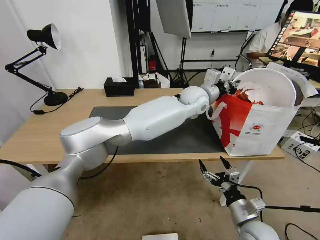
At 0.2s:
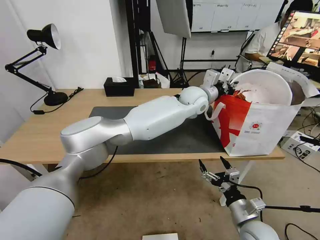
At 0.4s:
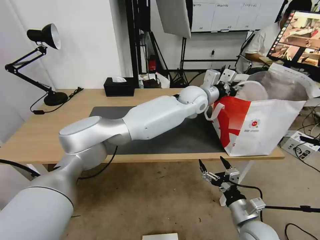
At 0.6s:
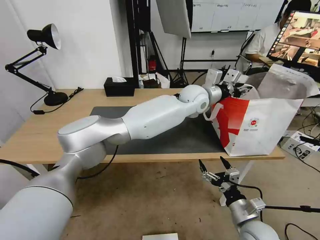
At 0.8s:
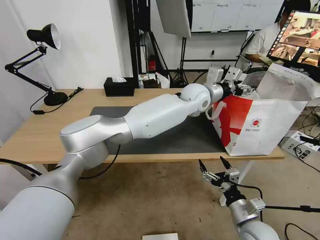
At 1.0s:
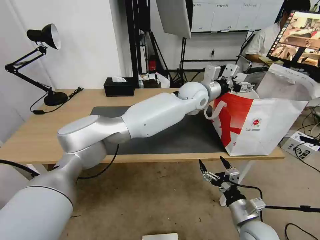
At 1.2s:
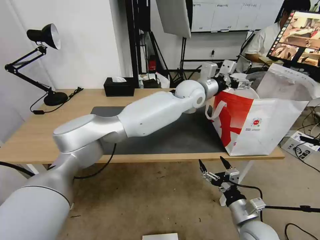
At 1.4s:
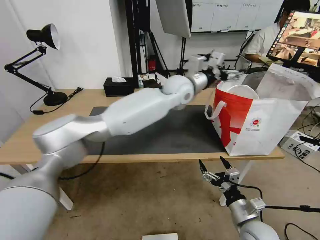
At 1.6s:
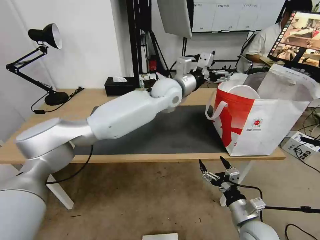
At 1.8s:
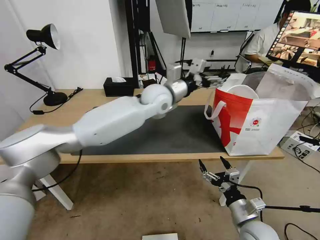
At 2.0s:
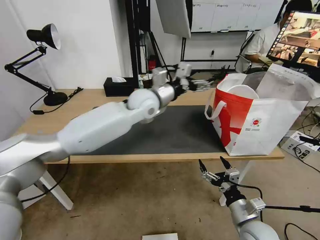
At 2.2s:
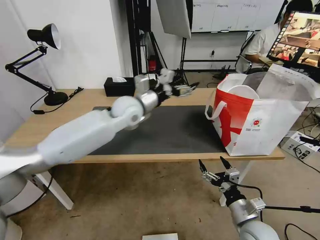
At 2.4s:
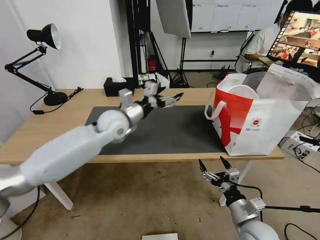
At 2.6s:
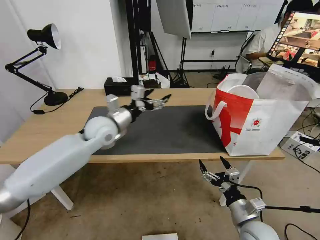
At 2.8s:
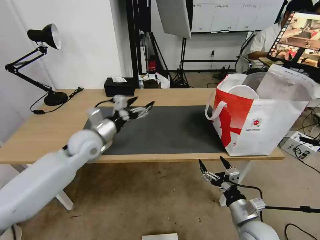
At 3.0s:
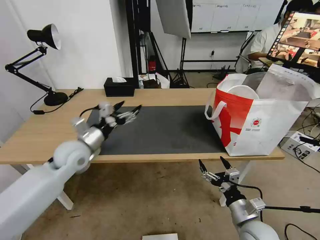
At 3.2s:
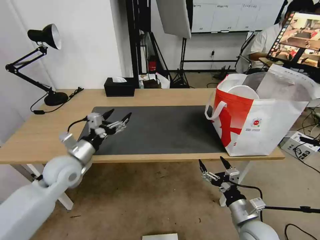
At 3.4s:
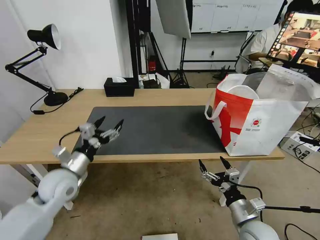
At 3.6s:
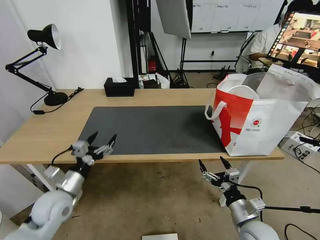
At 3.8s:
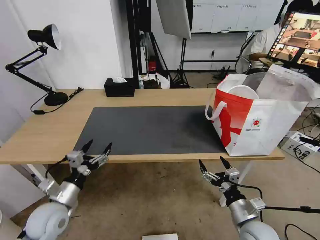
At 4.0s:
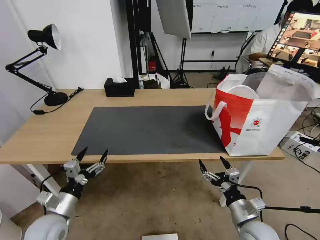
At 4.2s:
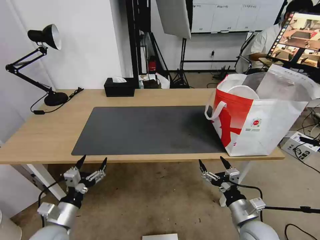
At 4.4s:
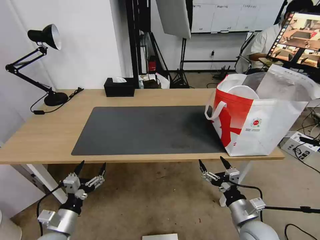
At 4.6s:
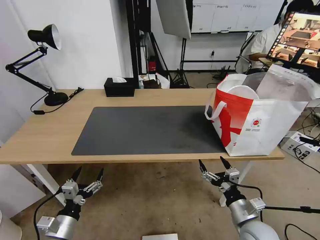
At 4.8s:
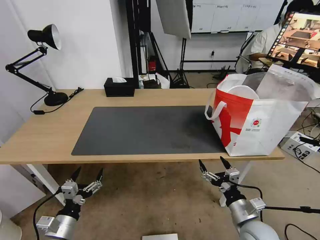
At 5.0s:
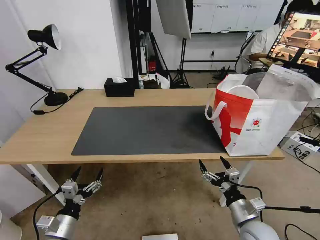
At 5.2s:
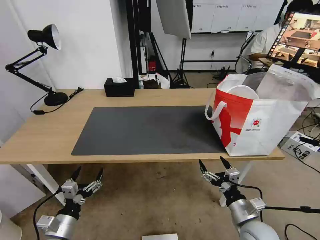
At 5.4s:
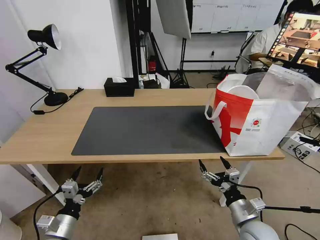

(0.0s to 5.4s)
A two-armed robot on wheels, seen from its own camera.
Task of the whole recording: Pick up the trash from the table and place it into the takeout bag.
0.0s - 1.4s: The left gripper moves to the left, roughly 5 cm, and opens its fingers.
1.4s - 2.8s: The left gripper moves to the left, backward and downward, about 30 cm.
2.8s - 4.0s: The left gripper travels backward, downward and to the left by about 25 cm.
4.0s - 5.4s: The left gripper heads backward, covering approximately 5 cm.

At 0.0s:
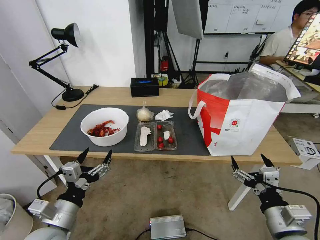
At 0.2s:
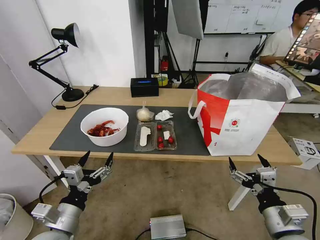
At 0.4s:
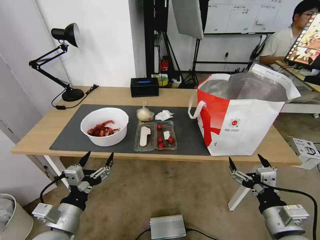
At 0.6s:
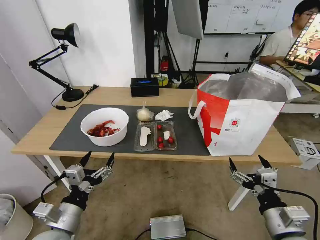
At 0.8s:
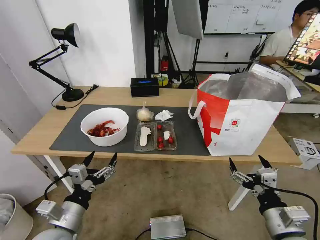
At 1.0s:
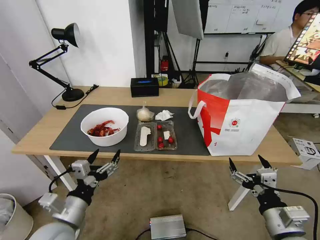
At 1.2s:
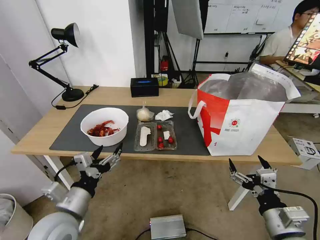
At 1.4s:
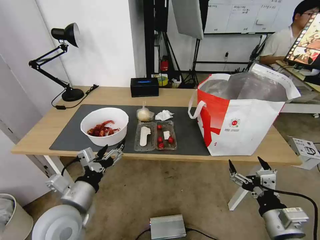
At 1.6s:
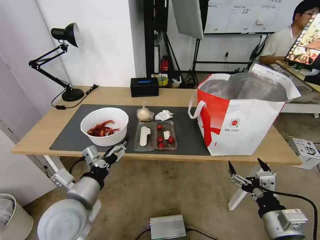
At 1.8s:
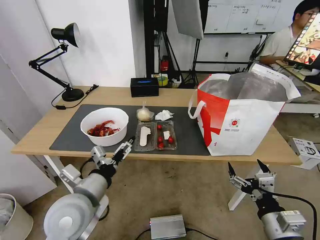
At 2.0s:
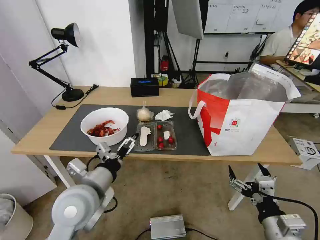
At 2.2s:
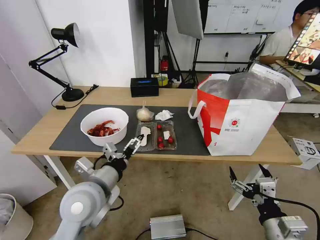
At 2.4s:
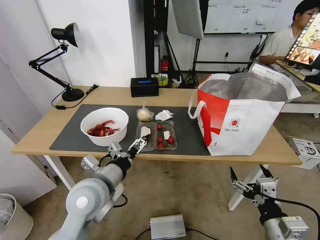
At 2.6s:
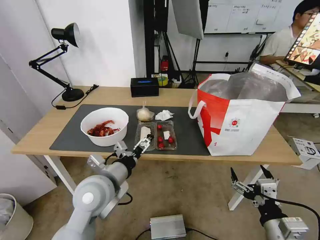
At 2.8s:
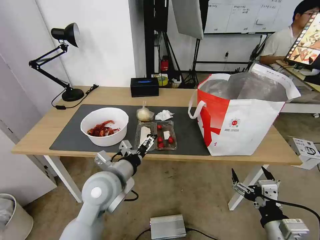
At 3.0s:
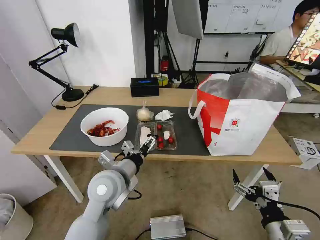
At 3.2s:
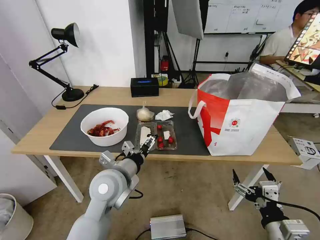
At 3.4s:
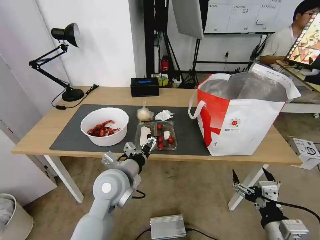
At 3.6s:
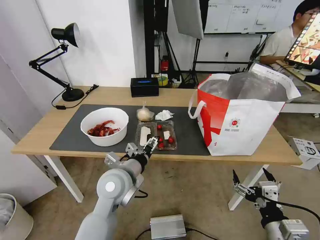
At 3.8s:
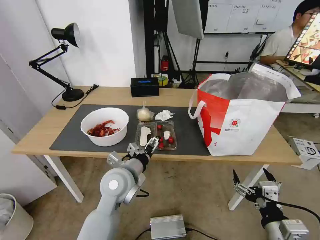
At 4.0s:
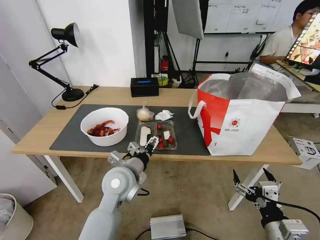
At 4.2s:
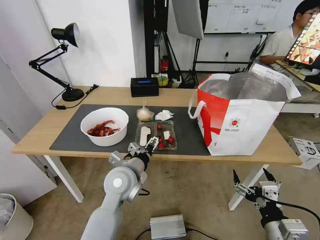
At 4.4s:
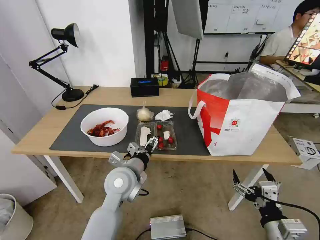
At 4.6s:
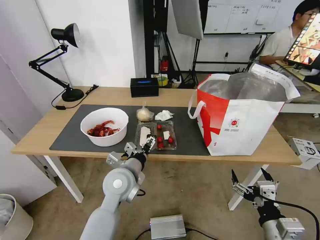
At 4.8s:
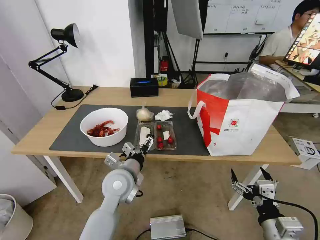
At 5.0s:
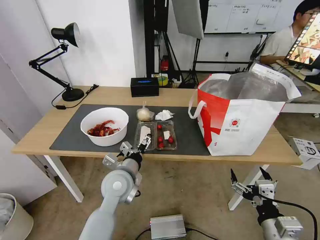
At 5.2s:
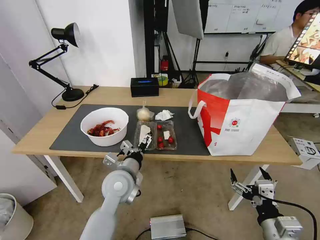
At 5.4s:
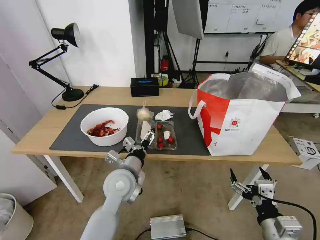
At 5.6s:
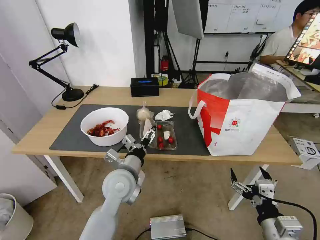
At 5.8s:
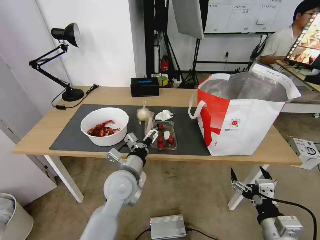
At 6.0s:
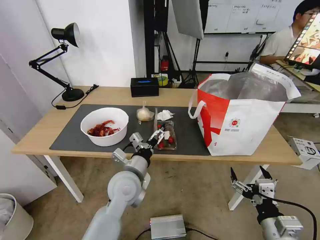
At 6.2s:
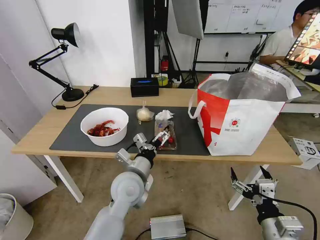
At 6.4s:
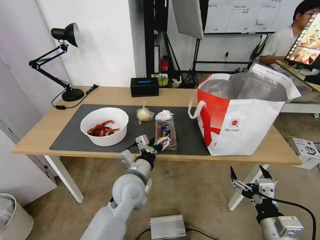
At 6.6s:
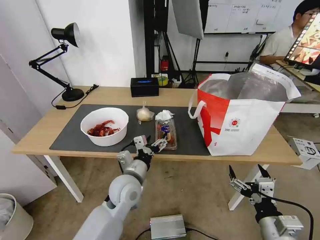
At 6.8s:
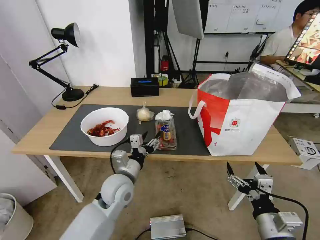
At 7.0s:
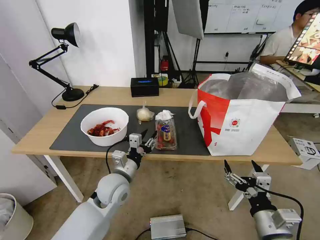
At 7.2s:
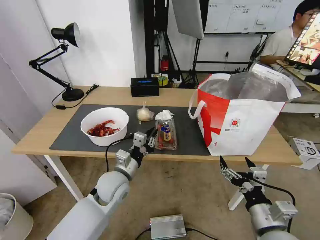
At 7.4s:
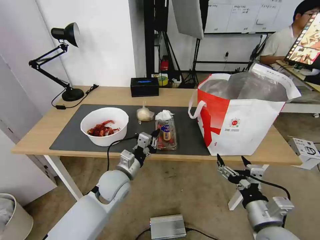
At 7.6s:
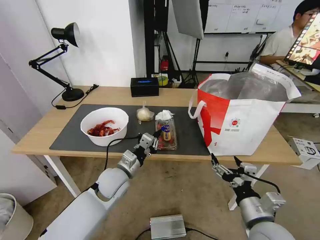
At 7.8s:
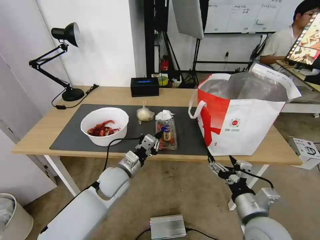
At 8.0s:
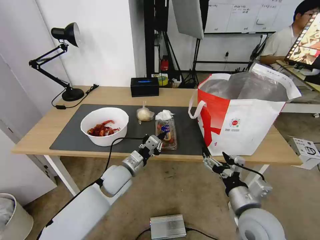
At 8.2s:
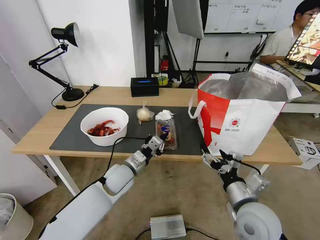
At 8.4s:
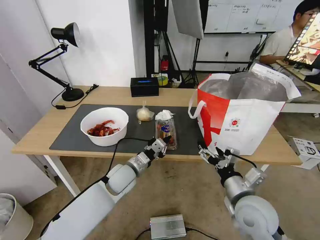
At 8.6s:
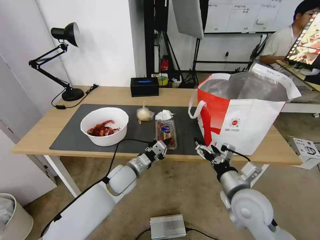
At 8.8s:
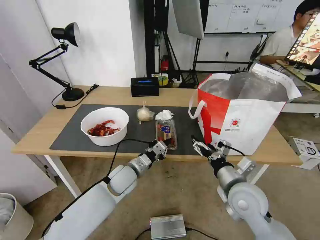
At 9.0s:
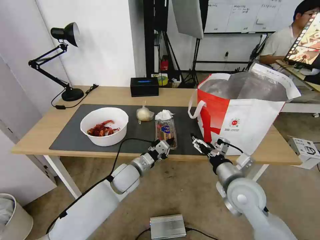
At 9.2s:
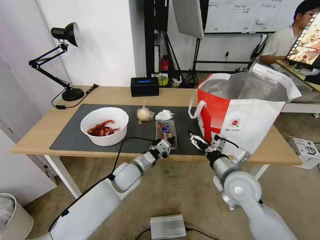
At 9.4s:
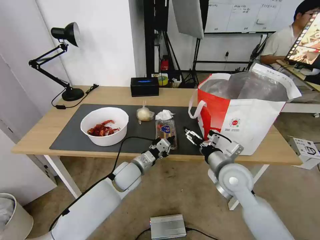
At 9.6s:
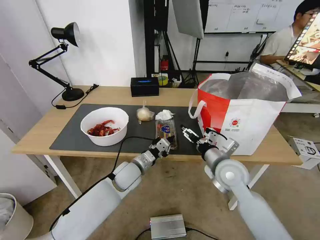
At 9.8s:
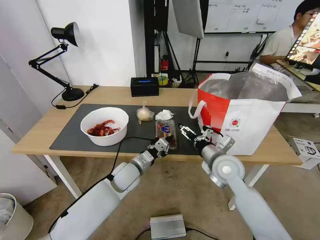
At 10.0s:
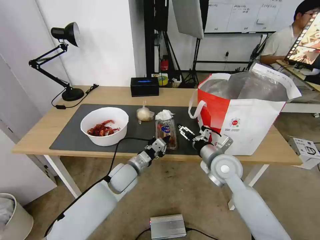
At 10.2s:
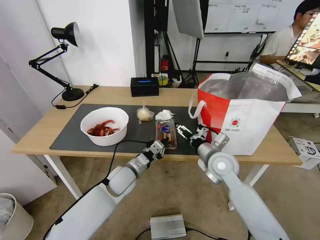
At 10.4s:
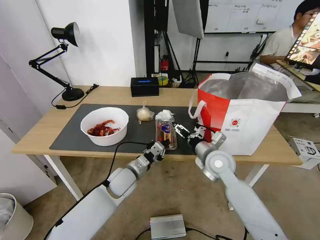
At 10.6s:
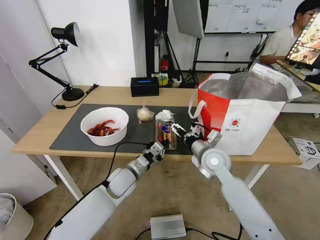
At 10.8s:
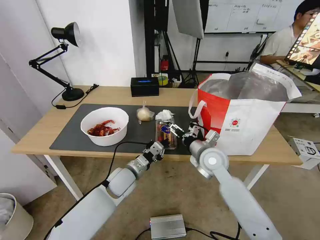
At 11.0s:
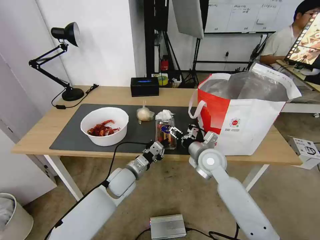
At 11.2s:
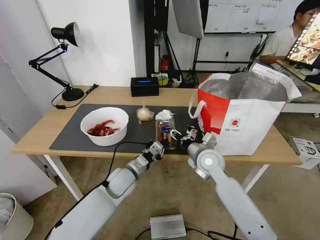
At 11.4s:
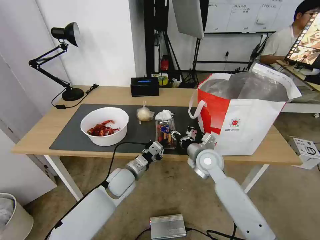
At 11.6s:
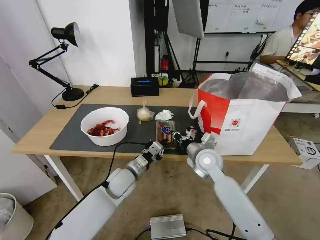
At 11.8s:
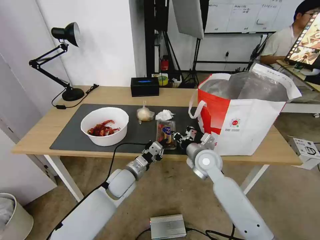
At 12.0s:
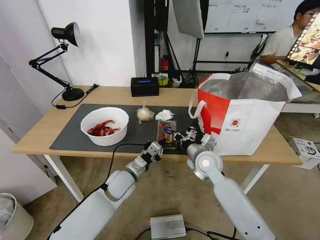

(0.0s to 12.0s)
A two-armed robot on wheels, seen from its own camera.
Task of the whole recording: Pick up the trash from the table and place it into the takeout bag.
1.6s - 3.0s: The left gripper heads to the right and forward, covering about 10 cm.
3.0s - 4.4s: The left gripper shifts by some 5 cm.
6.0s - 7.6s: The right gripper ends up approximately 5 cm from where it was, while the left gripper ends up roughly 10 cm from where it was, and closes.
7.6s - 9.0s: The left gripper moves approximately 5 cm. The right gripper travels forward by approximately 10 cm.
9.0s - 10.4s: The right gripper travels forward by some 10 cm.
10.4s - 12.0s: The right gripper closes.

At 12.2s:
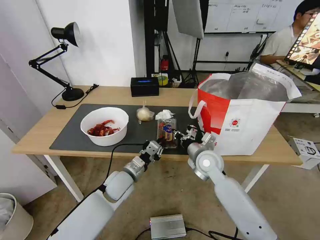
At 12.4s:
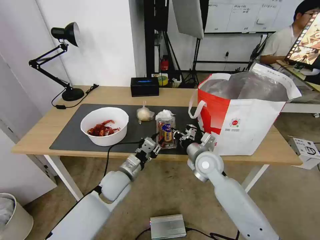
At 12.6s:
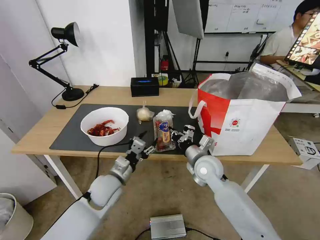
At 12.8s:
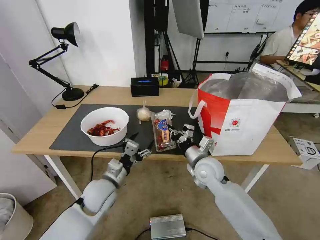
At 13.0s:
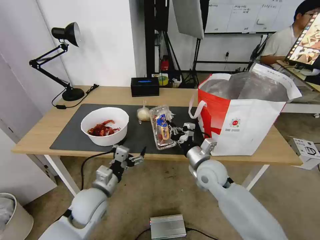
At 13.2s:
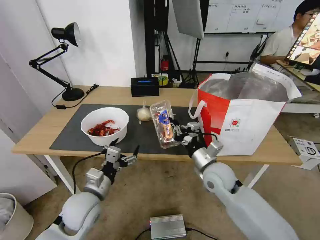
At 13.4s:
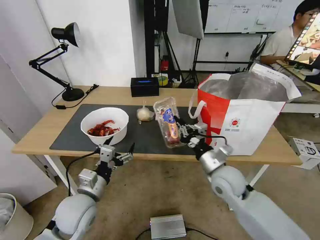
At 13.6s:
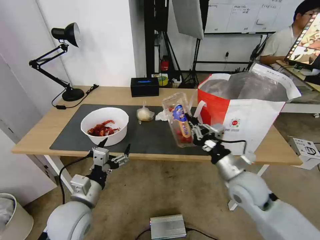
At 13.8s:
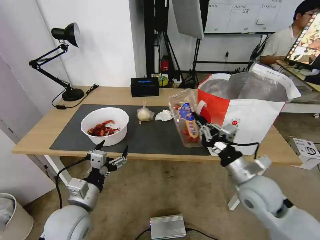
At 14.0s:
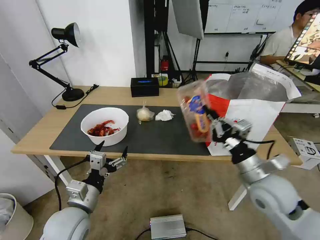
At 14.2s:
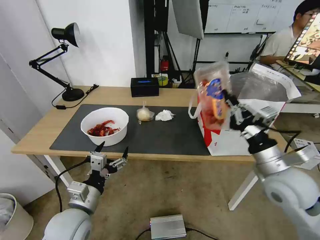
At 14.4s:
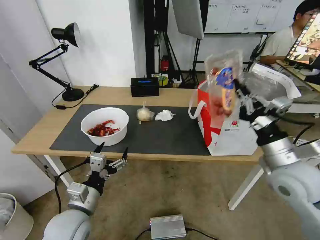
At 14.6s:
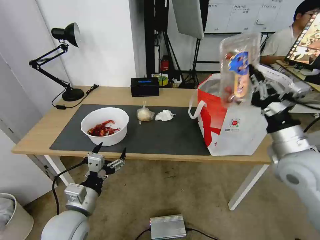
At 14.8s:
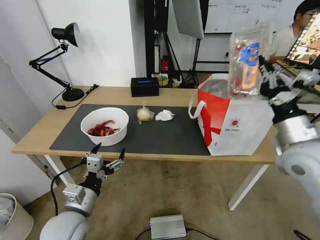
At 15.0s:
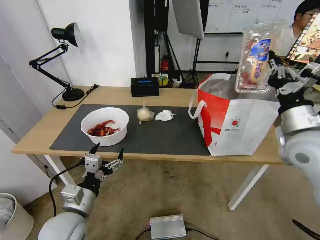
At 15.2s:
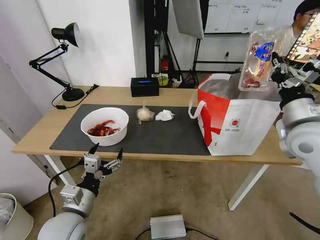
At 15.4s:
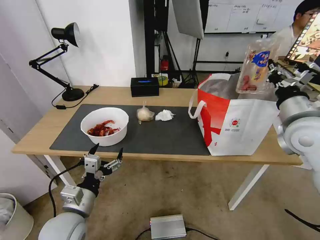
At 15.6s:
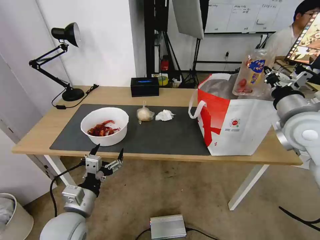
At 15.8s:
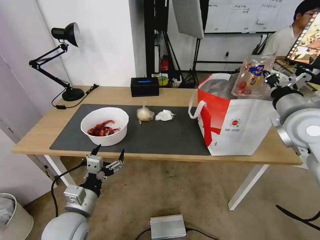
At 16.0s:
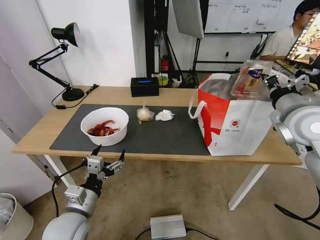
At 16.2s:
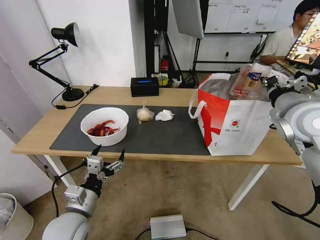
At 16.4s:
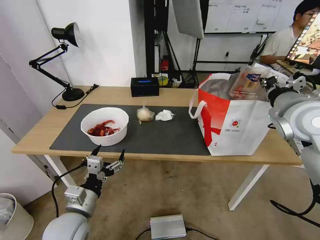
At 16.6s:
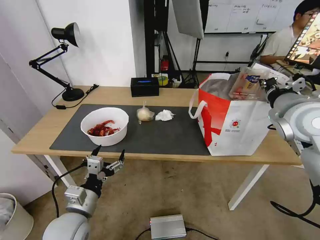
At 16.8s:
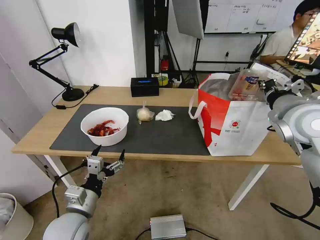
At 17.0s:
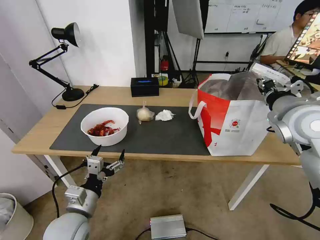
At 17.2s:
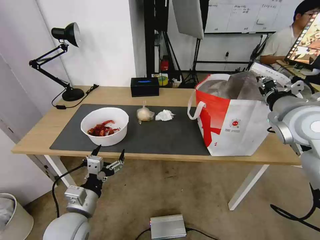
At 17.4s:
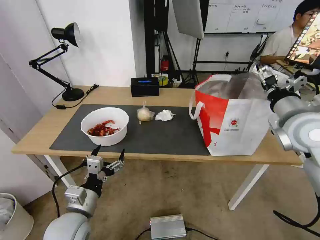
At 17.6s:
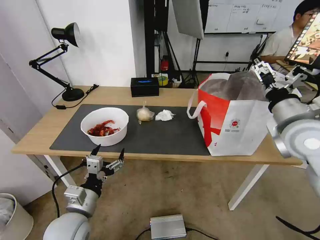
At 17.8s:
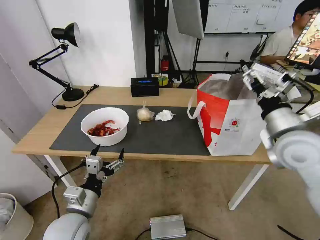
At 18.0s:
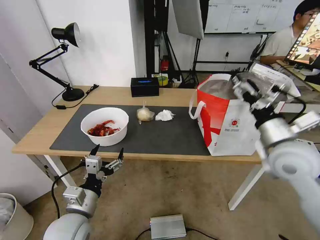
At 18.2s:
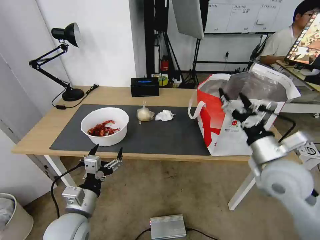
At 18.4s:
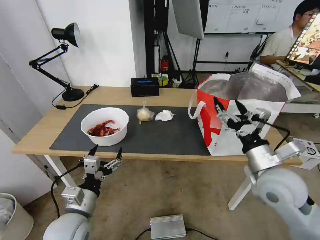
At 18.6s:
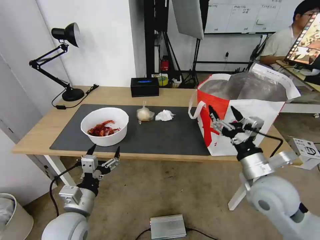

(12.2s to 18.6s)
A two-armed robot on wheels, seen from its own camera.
Task of the whole recording: Pick up the trash from the table and place it into the takeout bag.
12.2s - 13.8s: The right gripper is displaced backward, to the right and upward by roughly 15 cm. The left gripper shifts some 20 cm backward, to the left and upward, and opens up.
13.8s - 15.4s: The right gripper heads upward, to the right and forward, covering roughly 20 cm.
17.0s - 18.6s: The right gripper goes roughly 20 cm downward, backward and to the left, and opens.
